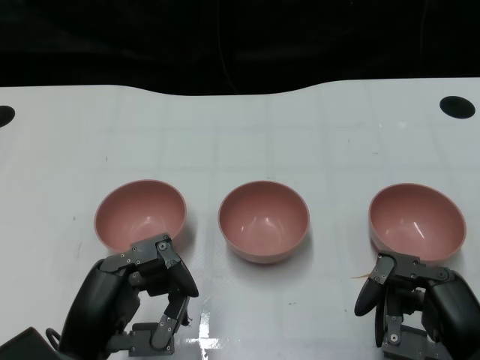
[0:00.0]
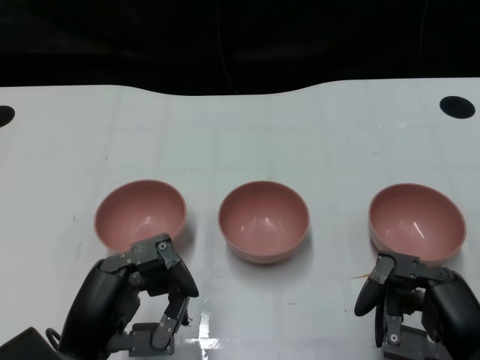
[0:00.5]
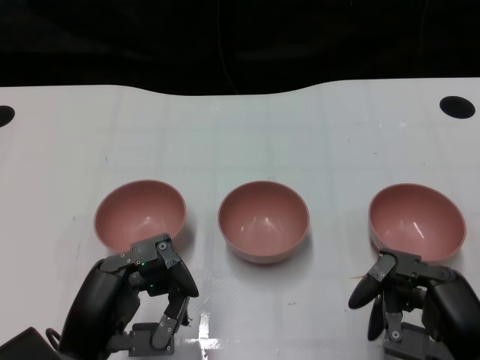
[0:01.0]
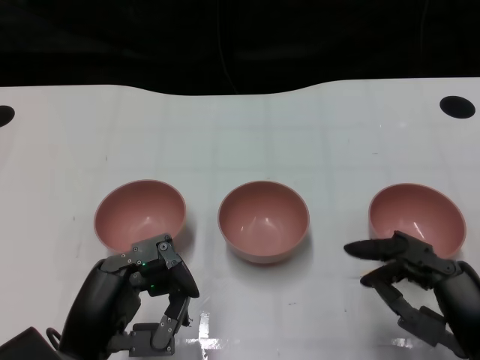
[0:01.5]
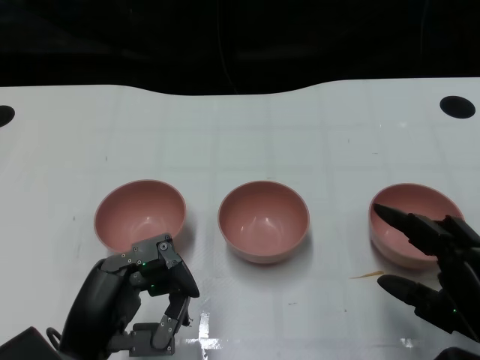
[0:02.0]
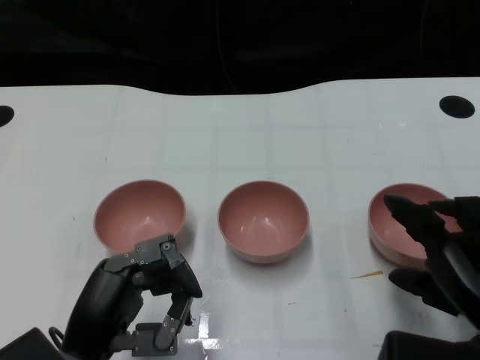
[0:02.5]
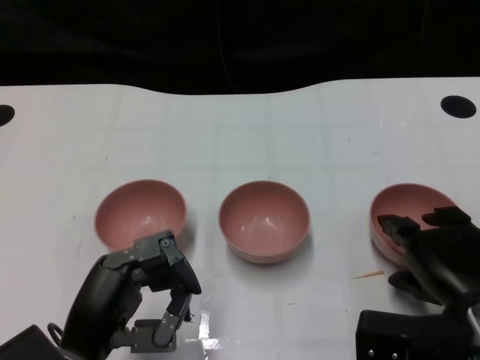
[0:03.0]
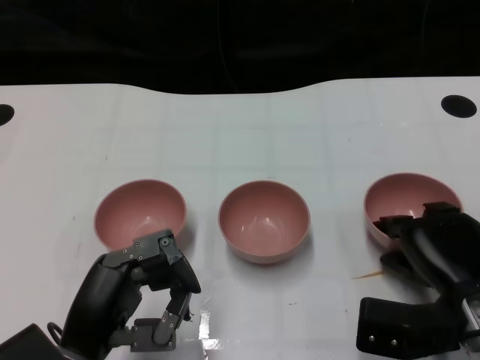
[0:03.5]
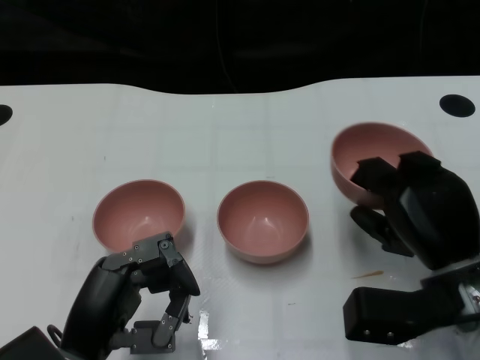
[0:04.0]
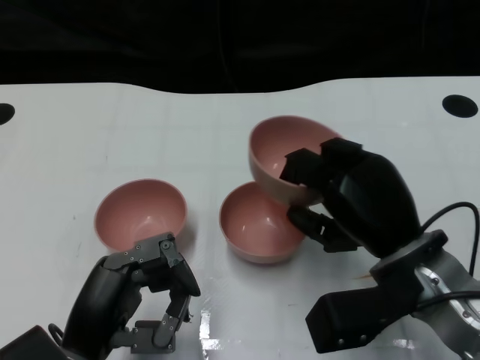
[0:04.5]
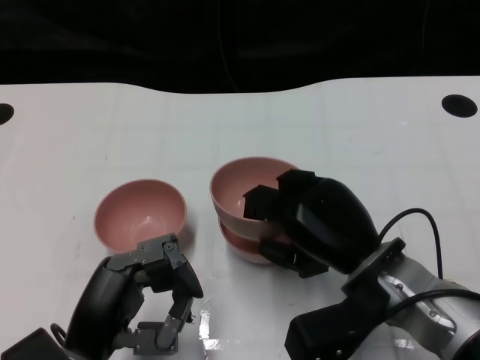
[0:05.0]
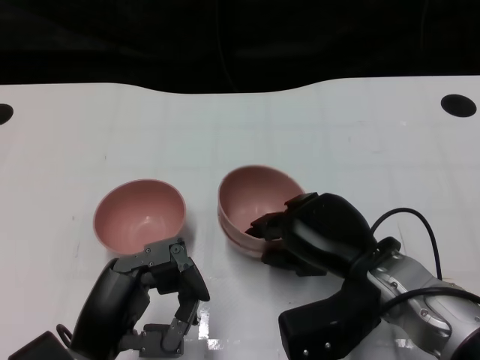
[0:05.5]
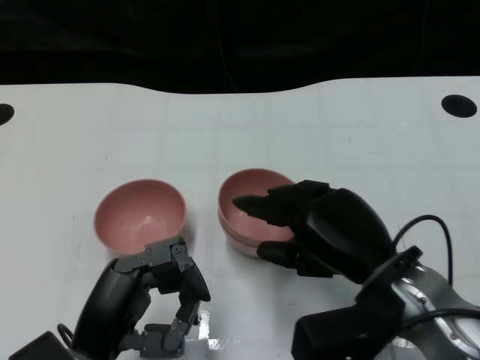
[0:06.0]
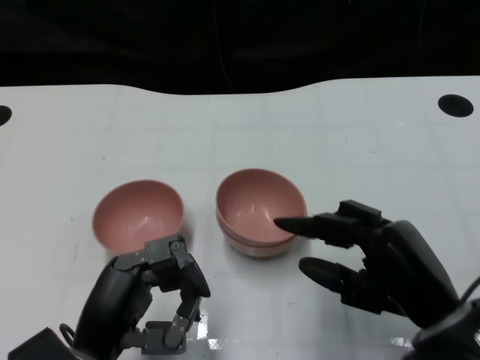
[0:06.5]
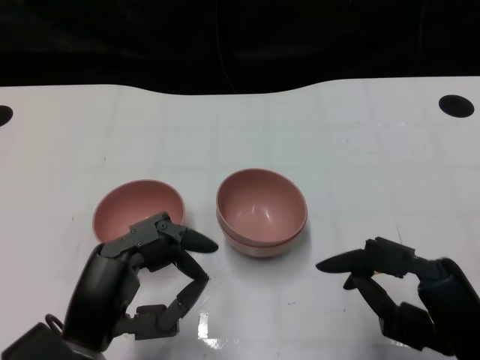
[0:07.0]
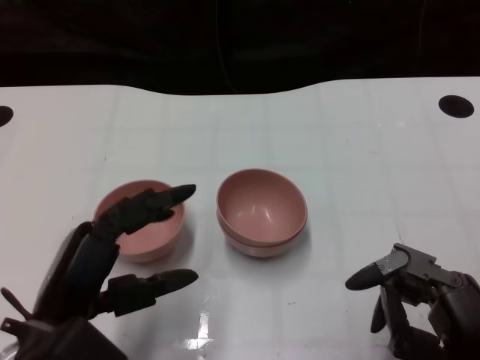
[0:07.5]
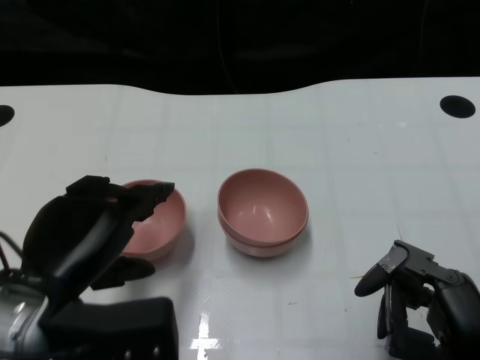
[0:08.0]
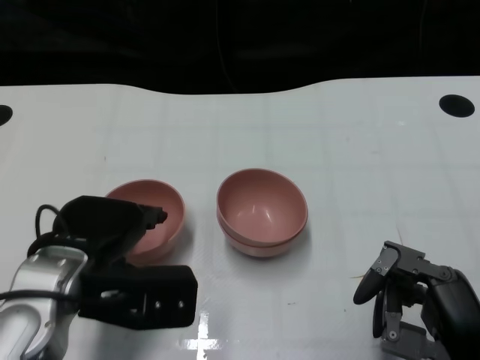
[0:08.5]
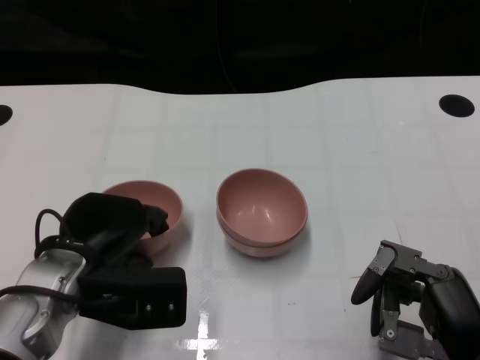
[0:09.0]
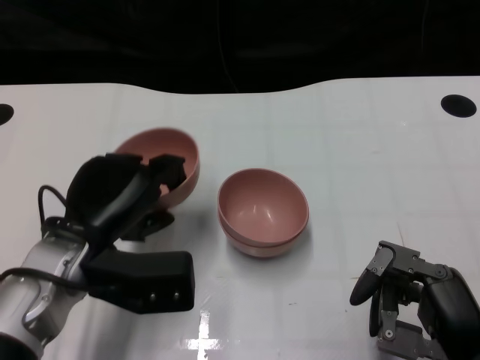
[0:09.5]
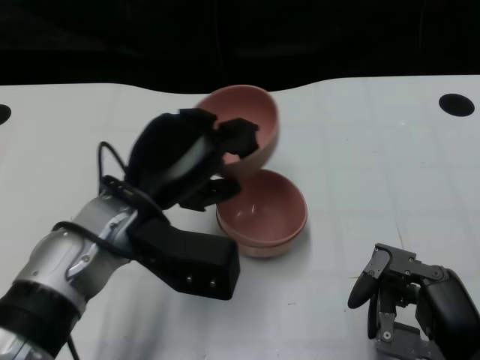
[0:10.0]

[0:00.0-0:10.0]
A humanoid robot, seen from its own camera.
Task of the whole recording: Pick up the bowl on one side of the table and place it on top of the middle bowl, then pick up the bowl on the other side of the table and place it on top of the middle bowls.
Step, 0:01.0 to 0:03.0: Grasp the bowl on the right with the right gripper.
Step, 0:04.0 to 0:06.0: Place the bowl on the right onto the bowl in the middle with right gripper.
Step, 0:06.5 to 0:09.0: Grasp the bowl on the left with the left gripper.
0:02.0 to 0:04.0: The right hand moves forward, about 10 cm.
0:04.0 to 0:06.0: The right hand is displaced to the left by some 5 cm.
0:06.0 to 0:08.0: The left hand is displaced upward by roughly 5 cm, while the right hand goes approximately 10 cm backward and to the right.
0:08.0 to 0:10.0: The left hand moves forward and to the right, roughly 10 cm.

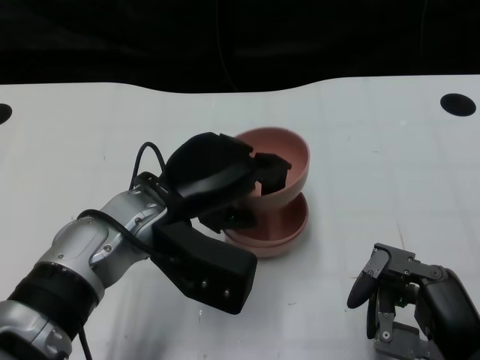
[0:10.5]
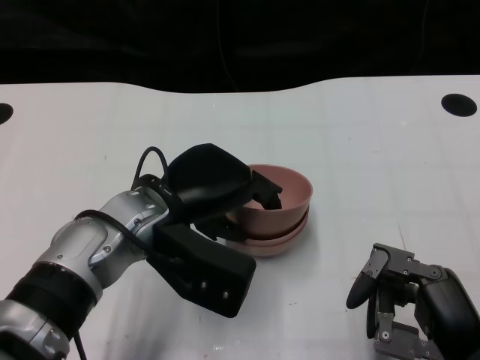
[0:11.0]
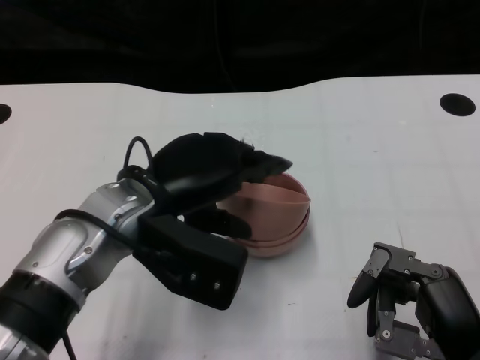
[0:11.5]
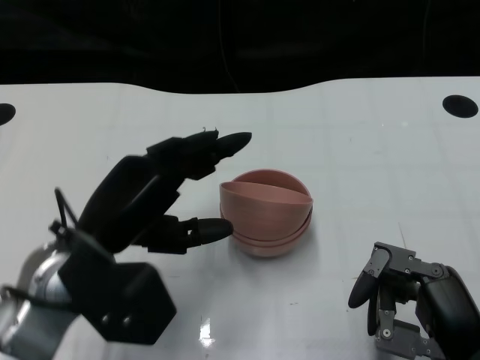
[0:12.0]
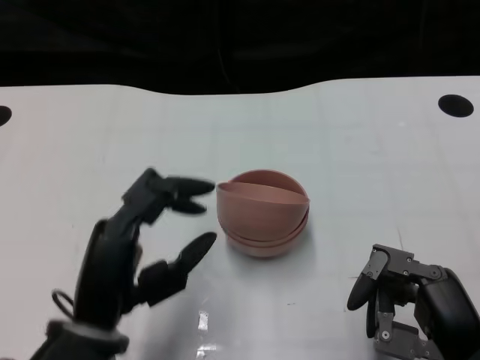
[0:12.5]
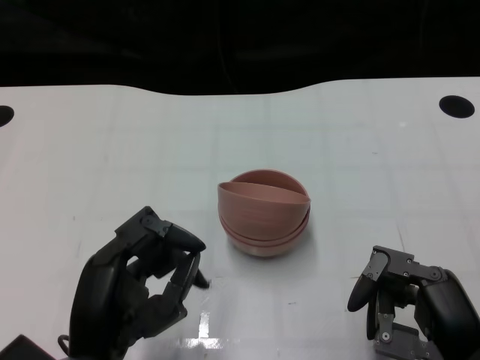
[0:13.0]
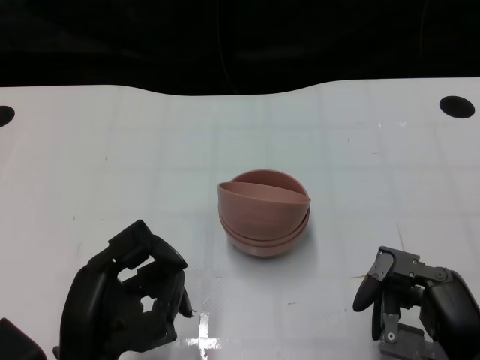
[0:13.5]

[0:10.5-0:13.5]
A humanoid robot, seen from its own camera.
Task of the whole recording: Pick up the bowl on one side of the table and place it on top of the middle bowl, then pick up the bowl on the other side of the table and place it on top of the middle bowls.
Step, 0:10.5 to 0:12.0: Place the bowl on the left onto the bowl in the middle with left gripper.
0:10.5 to 0:12.0: The left hand moves to the left, some 5 cm.
0:12.0 to 0:13.5: The left hand travels backward and downward by some 10 cm.

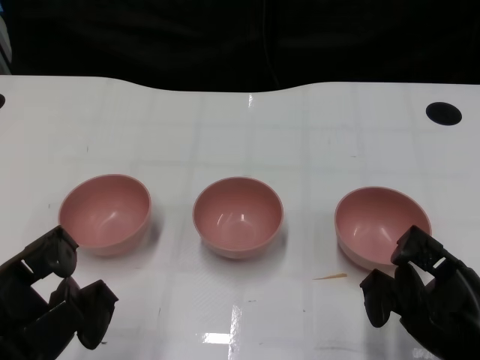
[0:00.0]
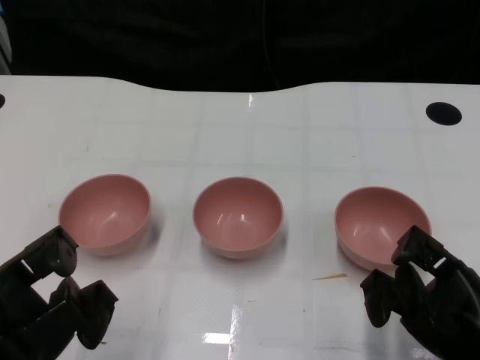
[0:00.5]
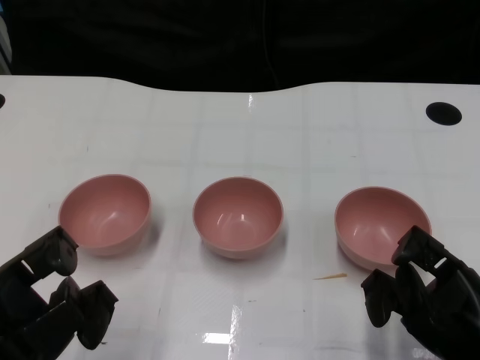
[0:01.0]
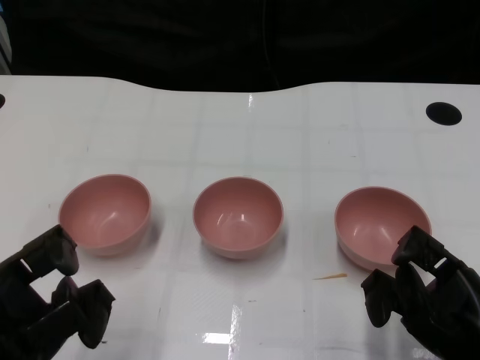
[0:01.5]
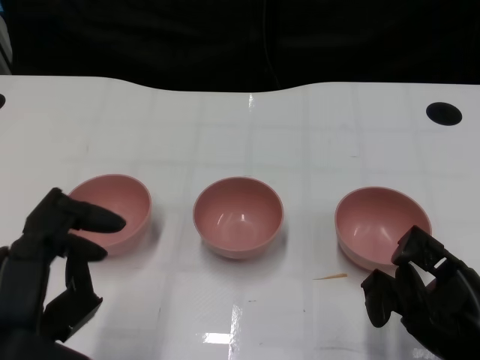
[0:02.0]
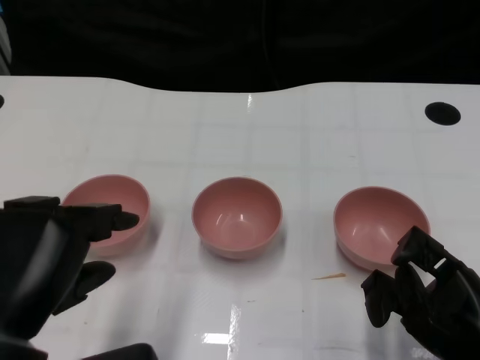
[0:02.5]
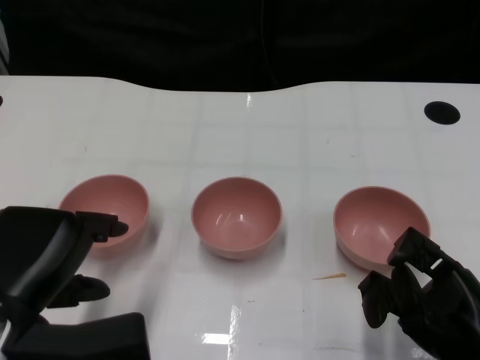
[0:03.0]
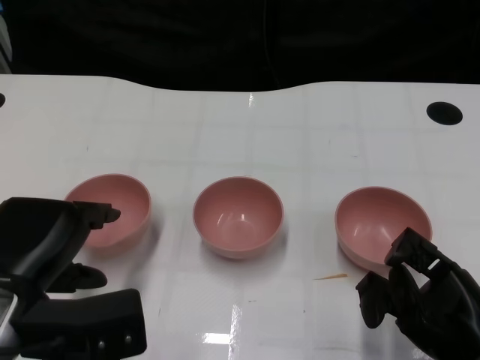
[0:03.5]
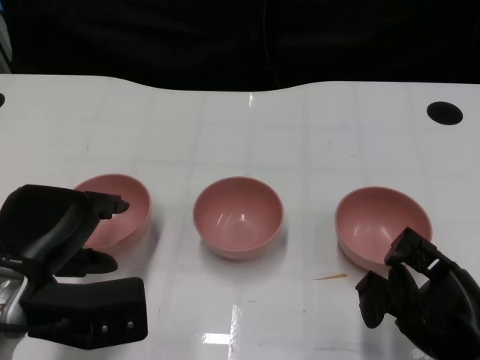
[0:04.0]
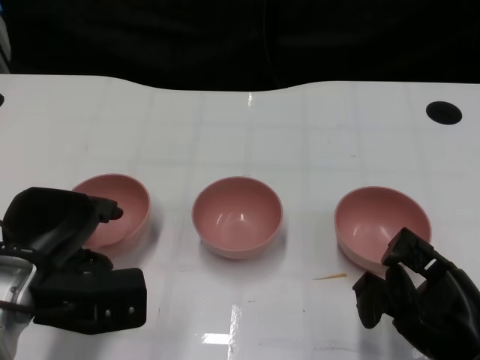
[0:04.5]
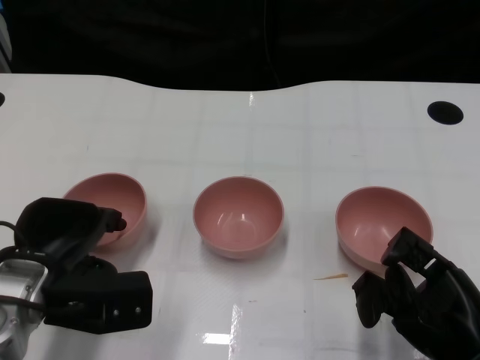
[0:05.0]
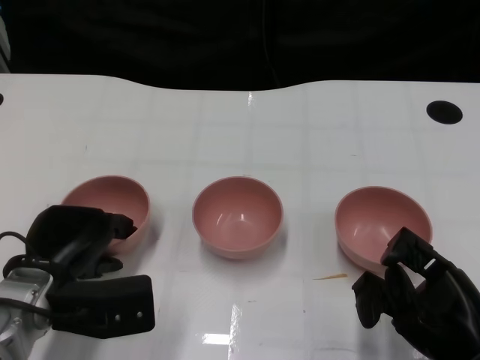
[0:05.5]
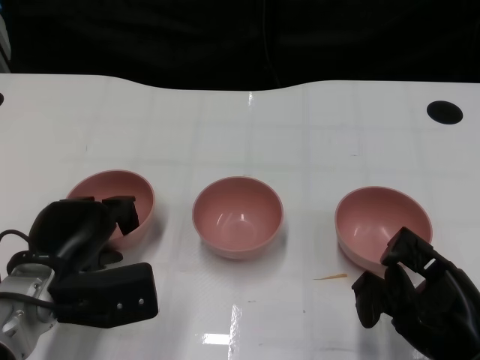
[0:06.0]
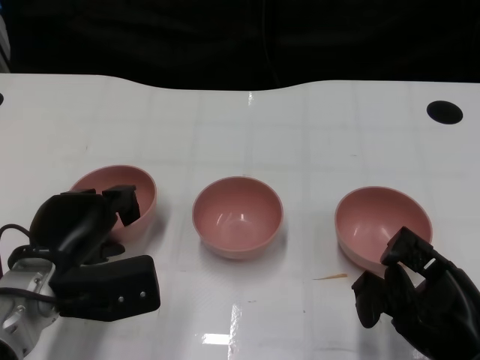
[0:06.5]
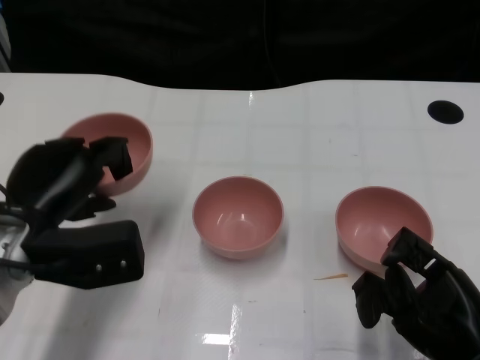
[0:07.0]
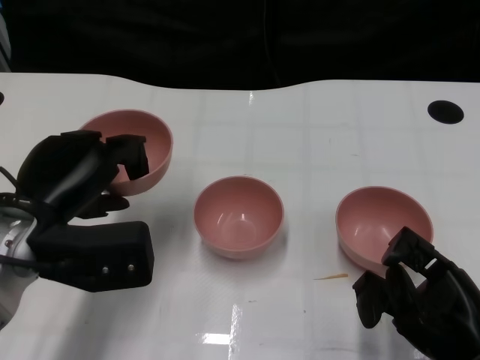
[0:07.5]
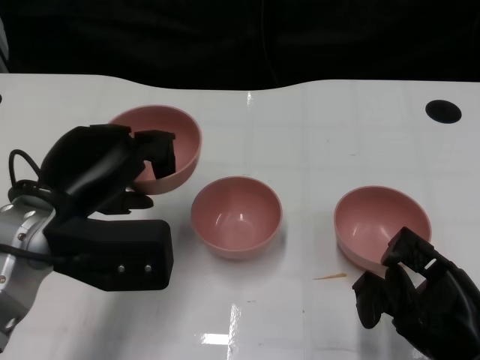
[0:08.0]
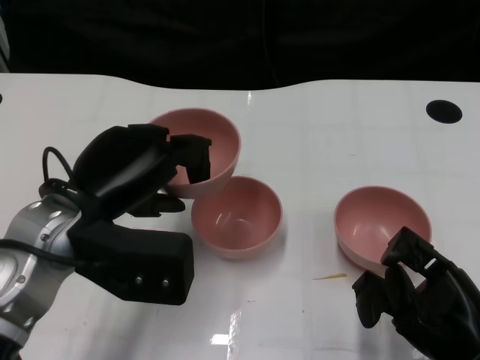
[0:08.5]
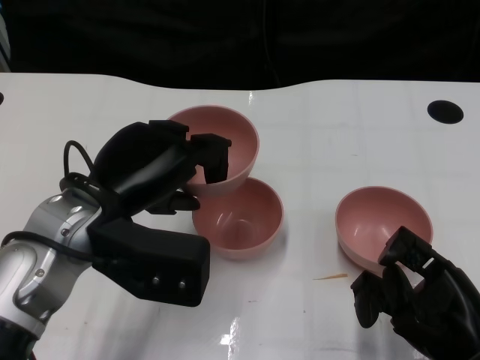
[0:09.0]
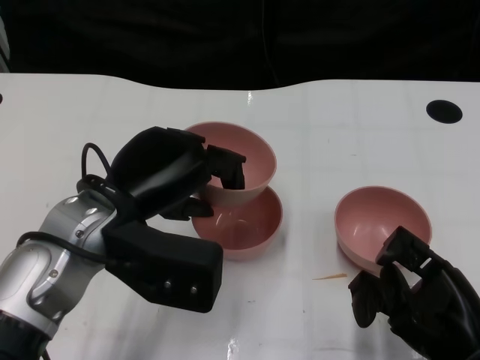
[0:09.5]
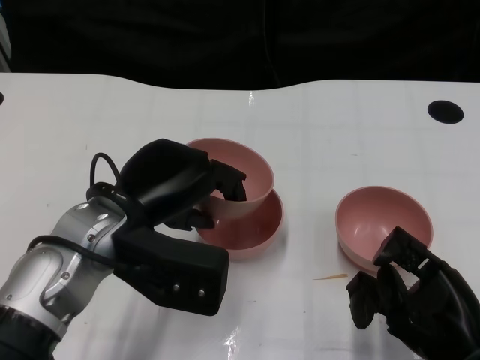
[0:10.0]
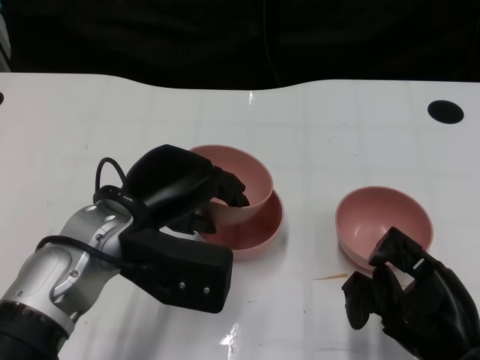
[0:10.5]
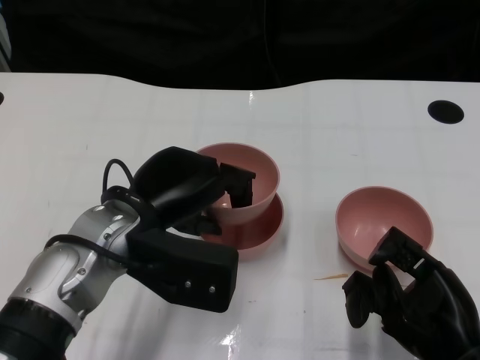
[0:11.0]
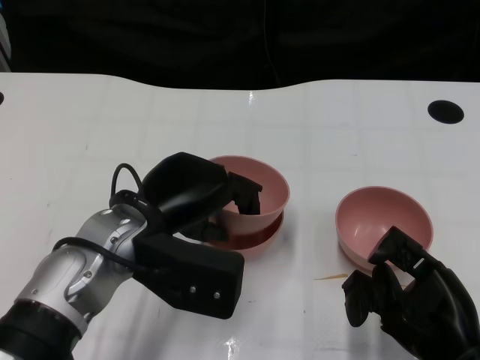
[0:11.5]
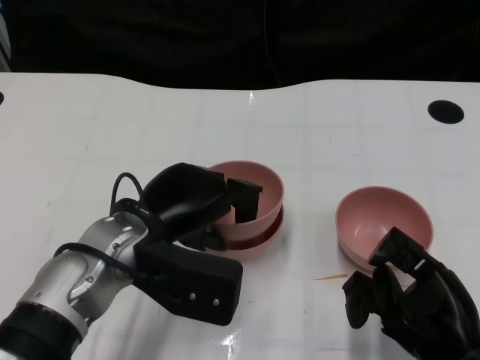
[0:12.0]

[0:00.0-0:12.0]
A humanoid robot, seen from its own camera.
Task of the whole recording: Pick up the bowl on one side of the table and place it on top of the middle bowl, then pick up the bowl on the other side of the table and place it on top of the middle bowls.
Step, 0:01.5 to 0:06.5: Grasp the bowl on the left with the left gripper.
0:02.0 to 0:04.0: The left hand shifts roughly 10 cm forward.
0:04.0 to 0:06.0: The left hand travels downward by roughly 5 cm.
0:06.0 to 0:08.0: The left hand goes approximately 10 cm upward.
0:08.0 to 0:10.0: The left hand moves to the right, roughly 5 cm.
0:10.0 to 0:12.0: The hands stay close to where they were, moving slightly.
